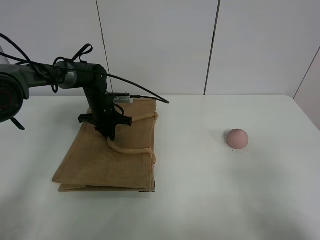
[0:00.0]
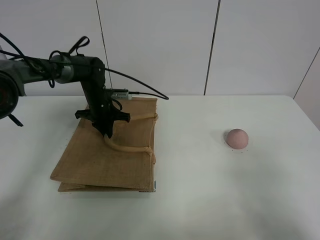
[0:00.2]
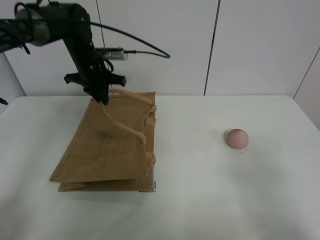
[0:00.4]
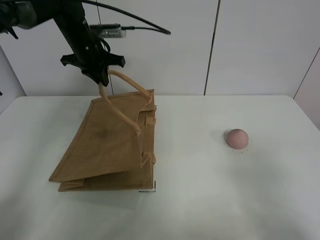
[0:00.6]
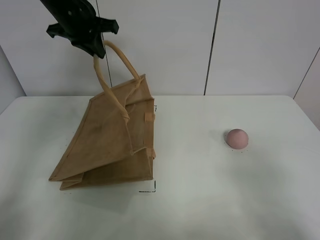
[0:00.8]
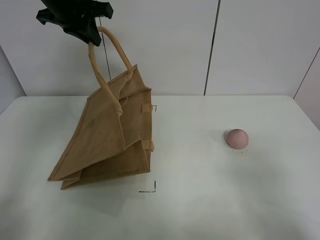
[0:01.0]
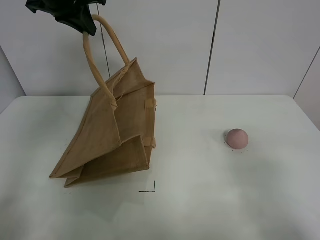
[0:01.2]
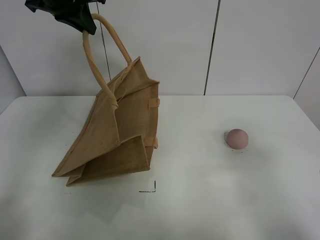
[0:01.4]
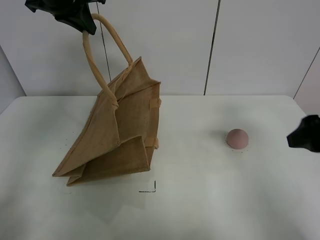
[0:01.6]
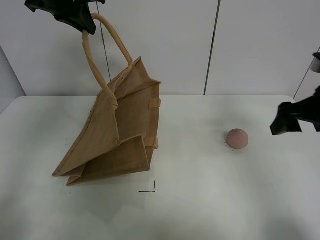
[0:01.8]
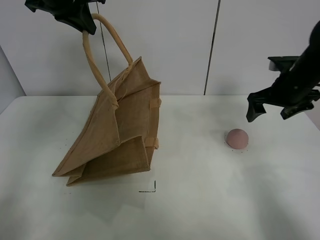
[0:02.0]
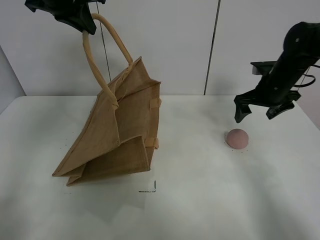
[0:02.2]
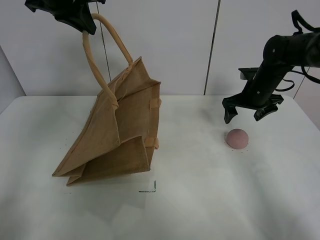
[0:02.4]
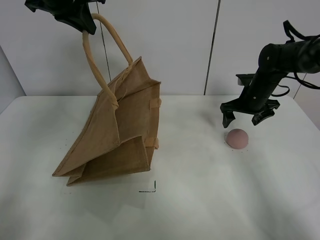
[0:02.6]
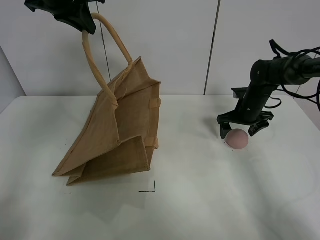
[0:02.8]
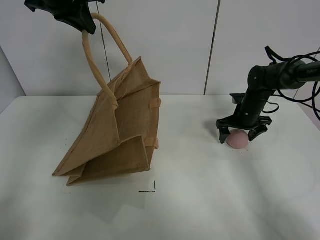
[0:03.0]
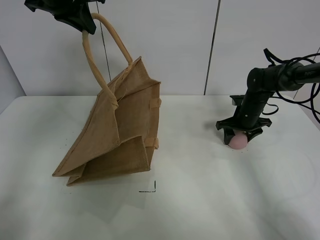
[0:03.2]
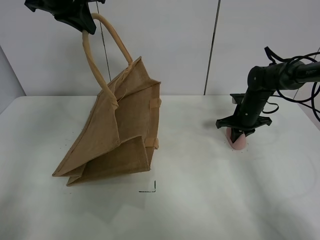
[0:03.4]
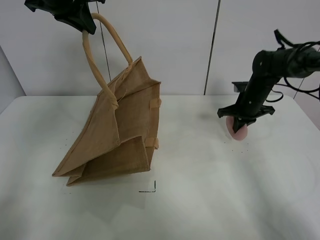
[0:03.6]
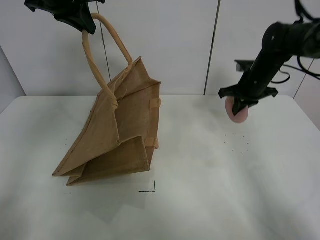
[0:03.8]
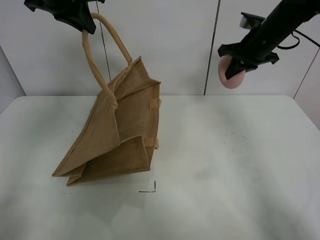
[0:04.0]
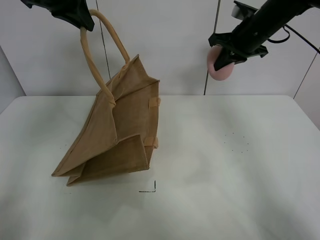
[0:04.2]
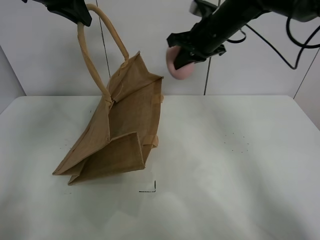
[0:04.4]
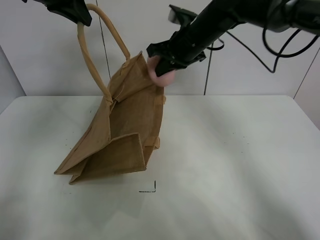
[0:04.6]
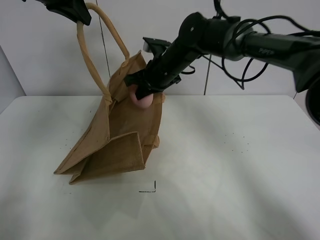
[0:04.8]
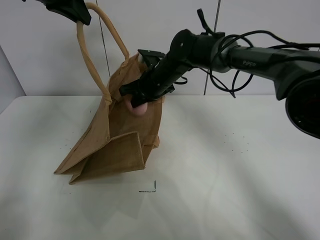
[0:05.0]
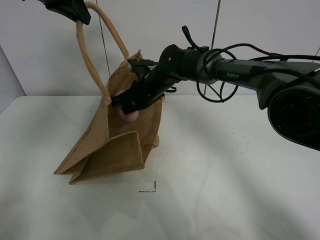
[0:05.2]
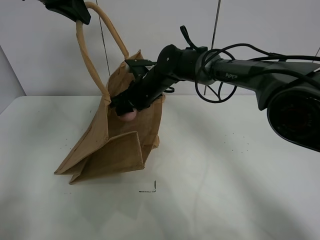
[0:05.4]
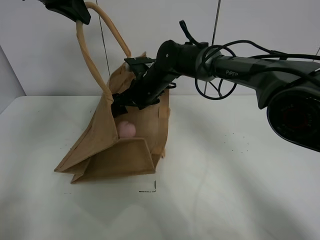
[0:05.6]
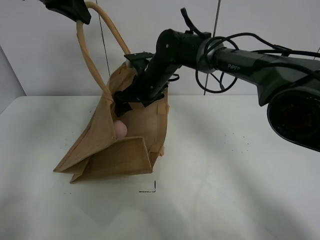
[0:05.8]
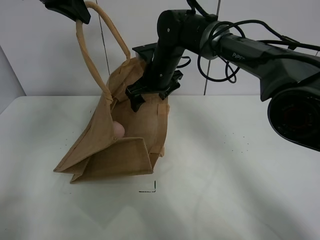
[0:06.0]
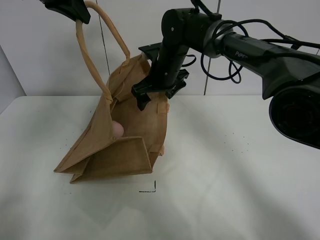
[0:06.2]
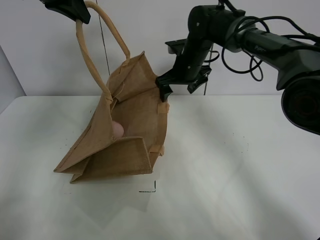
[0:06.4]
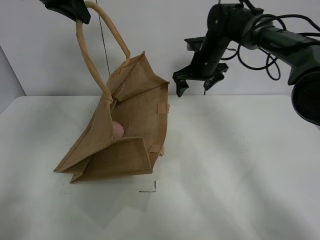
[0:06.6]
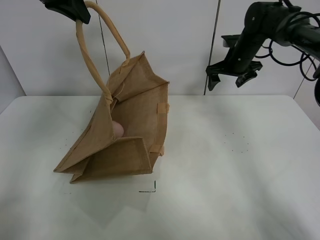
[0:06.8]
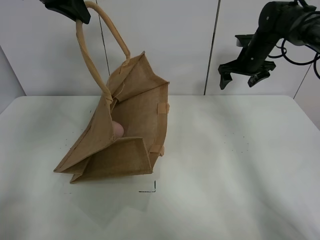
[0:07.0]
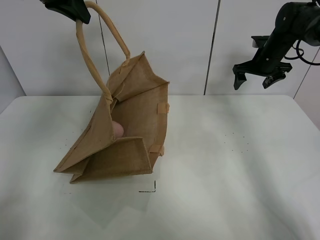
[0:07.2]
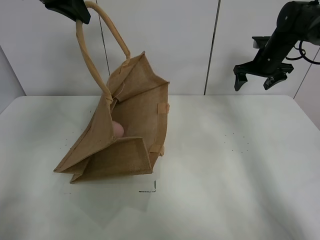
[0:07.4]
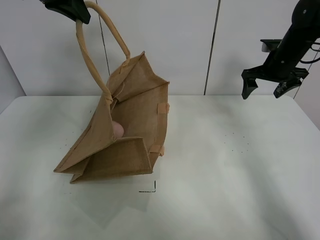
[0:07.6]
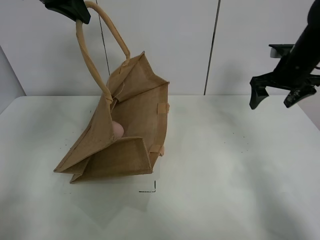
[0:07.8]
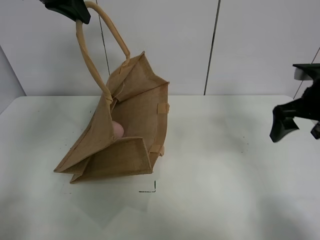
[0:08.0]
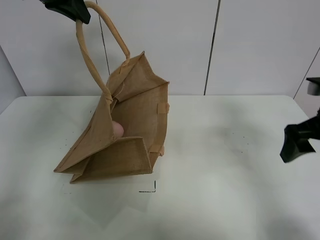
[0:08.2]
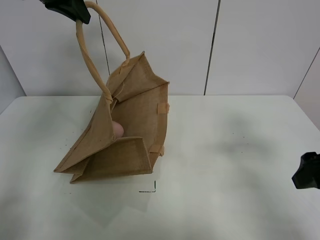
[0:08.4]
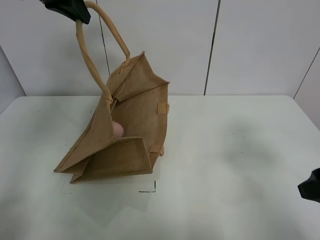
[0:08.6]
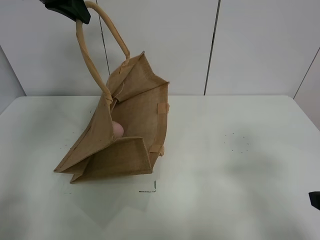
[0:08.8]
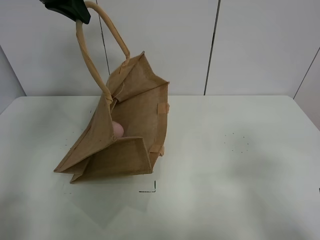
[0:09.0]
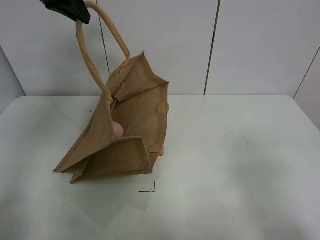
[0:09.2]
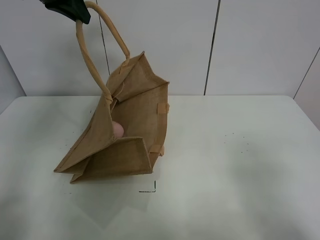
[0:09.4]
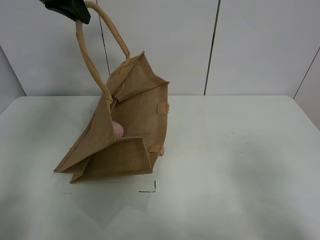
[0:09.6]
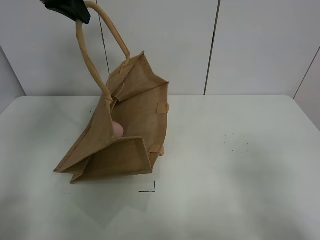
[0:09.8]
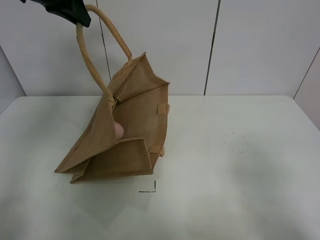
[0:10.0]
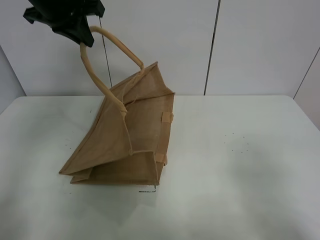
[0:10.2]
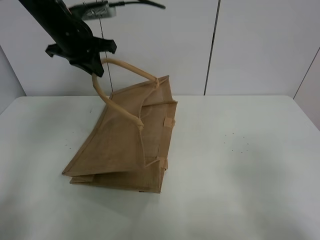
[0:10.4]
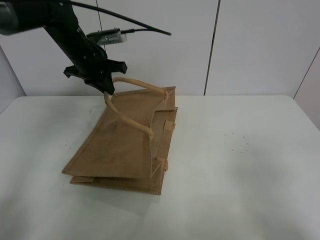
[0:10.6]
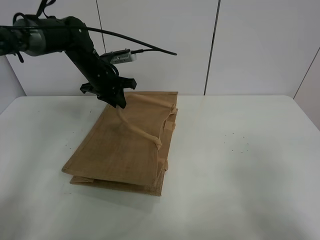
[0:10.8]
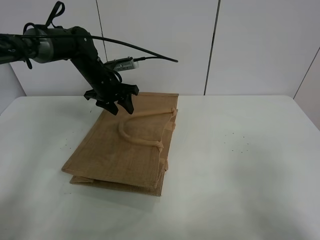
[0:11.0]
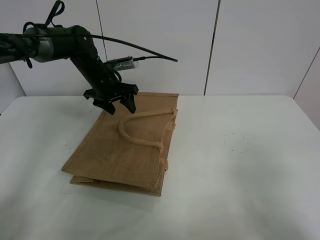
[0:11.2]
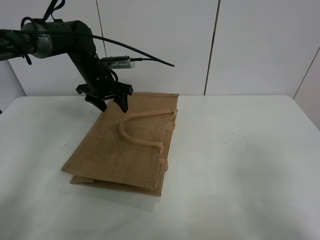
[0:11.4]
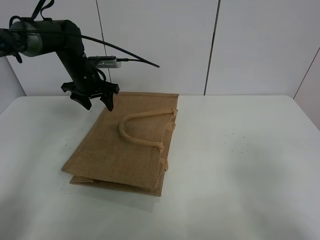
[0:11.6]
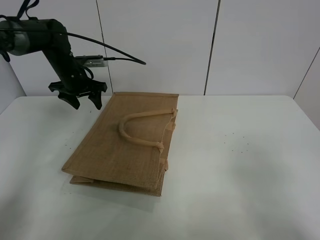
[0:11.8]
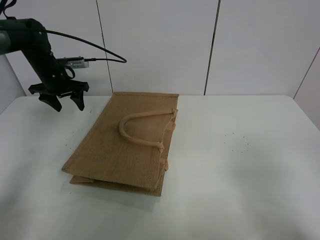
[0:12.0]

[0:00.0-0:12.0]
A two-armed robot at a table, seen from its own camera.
Task of the whole recording: open the brown linen bag and put the peach in the bag.
Step, 0:01.2 to 0:03.4: Grasp the peach with right gripper.
Step, 0:03.6 to 0:06.4: Place the peach in the handbag with right gripper.
Step, 0:06.6 to 0:11.8: Put down the handbag with left grippe.
0:00.0 to 0:01.6: The right gripper travels forward by roughly 20 cm; the left gripper goes approximately 30 cm upward.
0:01.6 to 0:03.0: The right gripper shifts approximately 30 cm forward and downward.
0:03.0 to 0:04.4: The right gripper travels upward and to the left by some 25 cm, and closes up.
0:04.4 to 0:06.0: The right gripper goes about 15 cm to the left and downward, and opens.
0:06.0 to 0:07.6: The right gripper shifts roughly 30 cm to the right.
0:07.6 to 0:09.0: The right gripper shifts approximately 40 cm backward.
0:09.0 to 0:10.4: The left gripper is displaced downward by approximately 15 cm.
0:10.4 to 0:12.0: The left gripper moves to the left, downward and forward, approximately 15 cm, and opens.

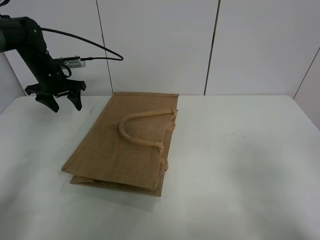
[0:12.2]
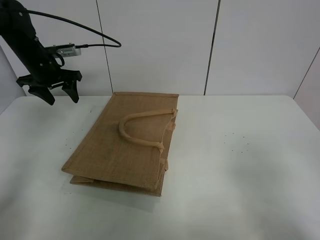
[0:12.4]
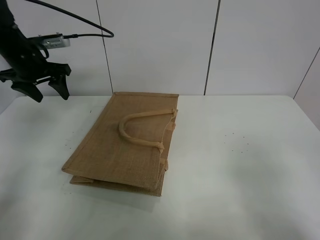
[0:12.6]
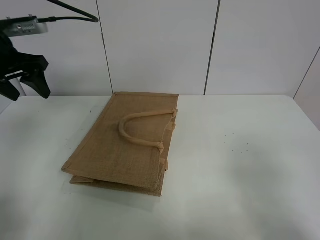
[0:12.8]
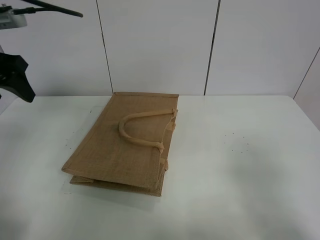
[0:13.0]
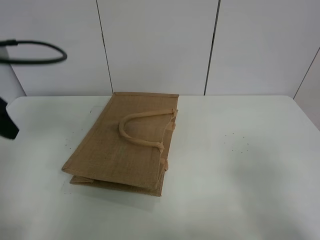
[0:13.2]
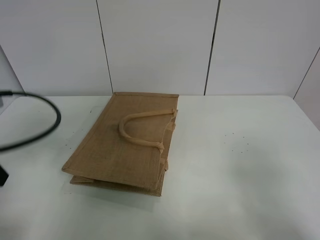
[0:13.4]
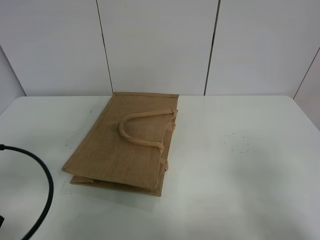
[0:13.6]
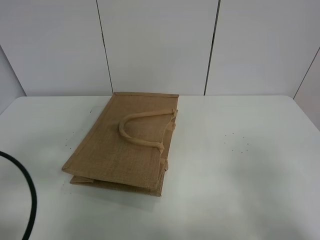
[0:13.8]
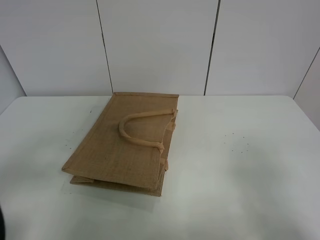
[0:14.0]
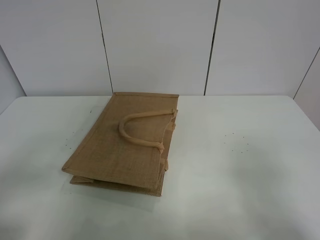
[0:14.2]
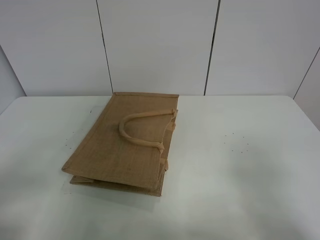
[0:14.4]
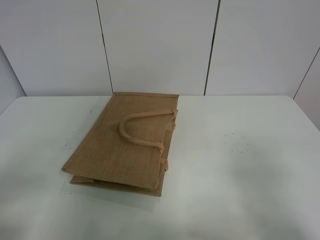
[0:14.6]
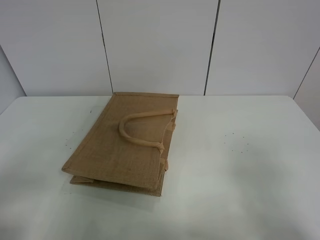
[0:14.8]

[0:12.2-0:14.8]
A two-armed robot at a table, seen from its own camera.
Task of the whole recording: open the brown linen bag and put the peach in the bag.
0:12.2 to 0:13.4: The left gripper is displaced backward by some 30 cm.
0:13.4 to 0:14.8: The left gripper heads backward, covering approximately 15 cm.
